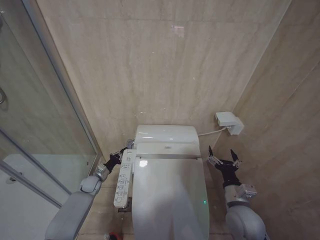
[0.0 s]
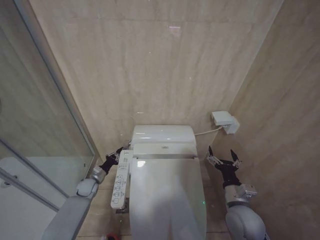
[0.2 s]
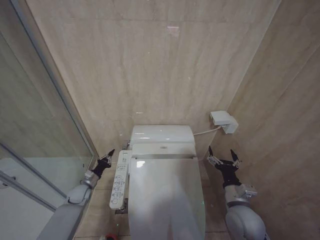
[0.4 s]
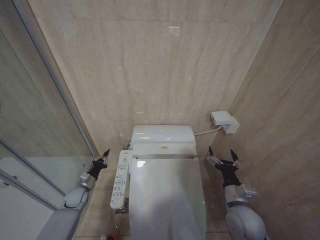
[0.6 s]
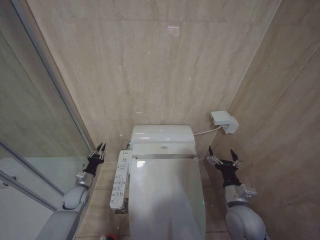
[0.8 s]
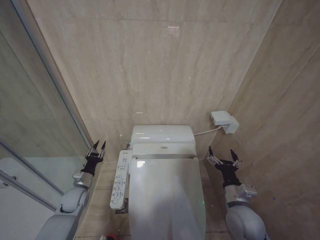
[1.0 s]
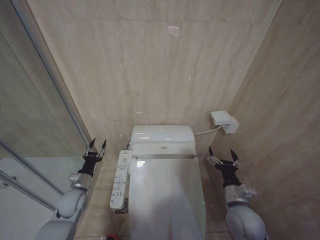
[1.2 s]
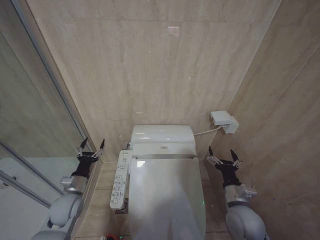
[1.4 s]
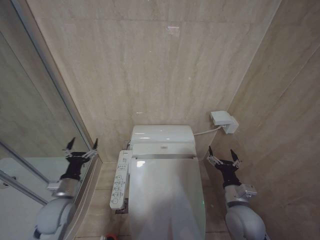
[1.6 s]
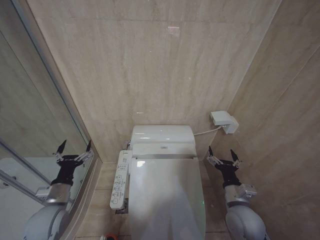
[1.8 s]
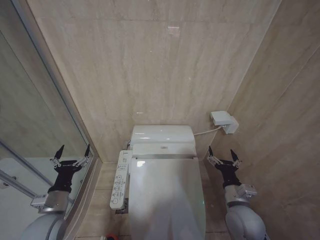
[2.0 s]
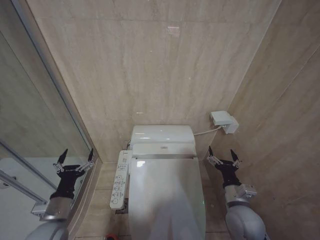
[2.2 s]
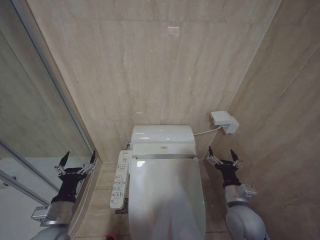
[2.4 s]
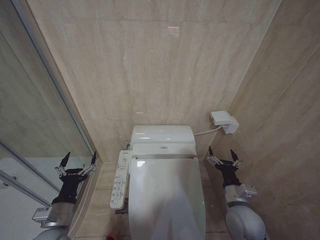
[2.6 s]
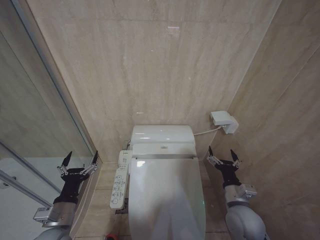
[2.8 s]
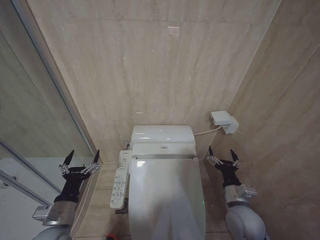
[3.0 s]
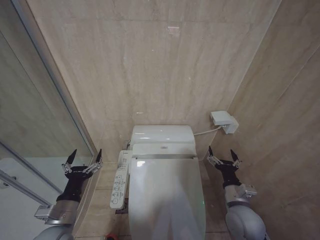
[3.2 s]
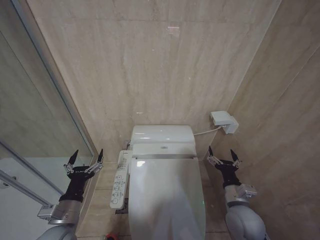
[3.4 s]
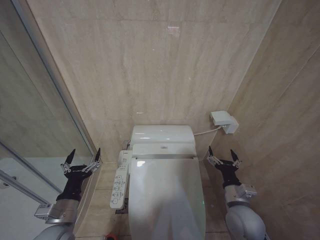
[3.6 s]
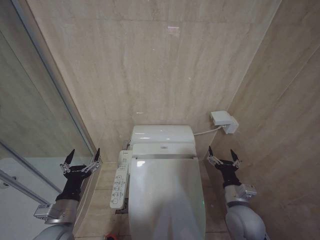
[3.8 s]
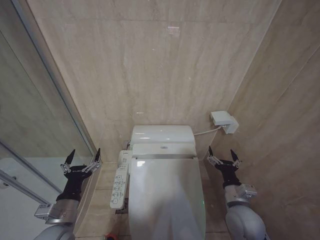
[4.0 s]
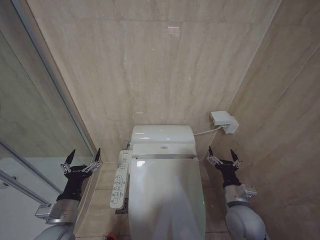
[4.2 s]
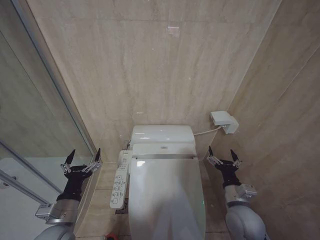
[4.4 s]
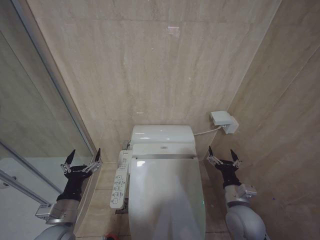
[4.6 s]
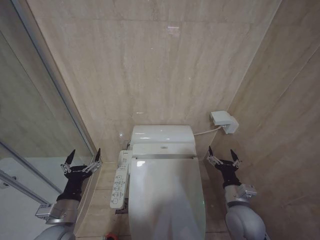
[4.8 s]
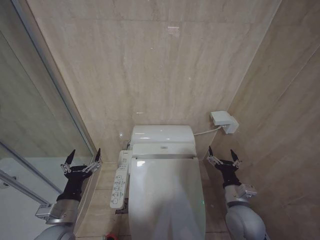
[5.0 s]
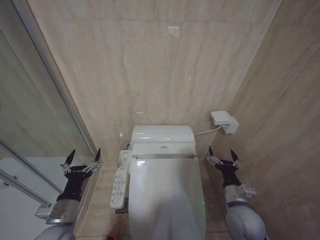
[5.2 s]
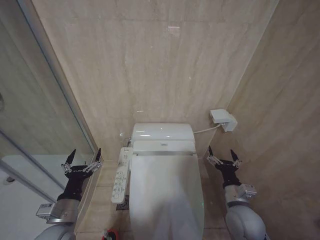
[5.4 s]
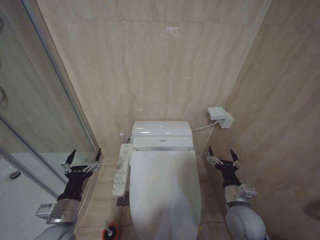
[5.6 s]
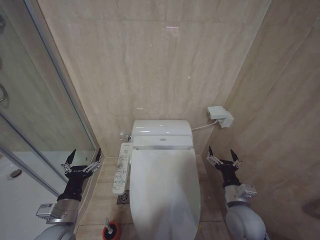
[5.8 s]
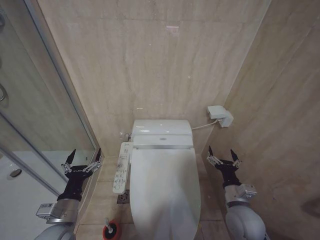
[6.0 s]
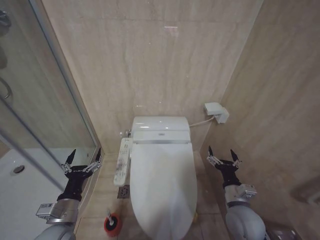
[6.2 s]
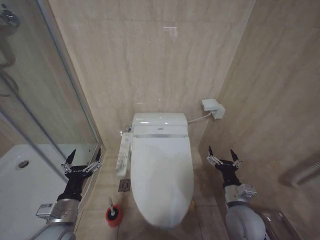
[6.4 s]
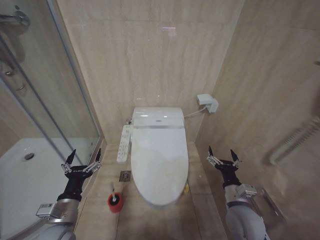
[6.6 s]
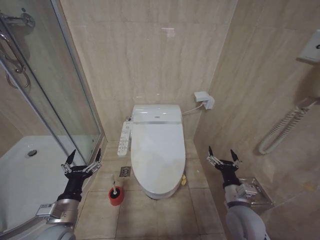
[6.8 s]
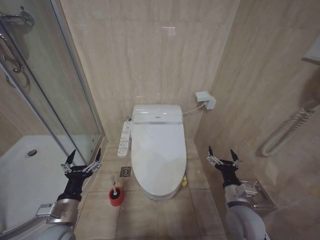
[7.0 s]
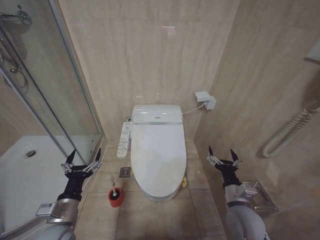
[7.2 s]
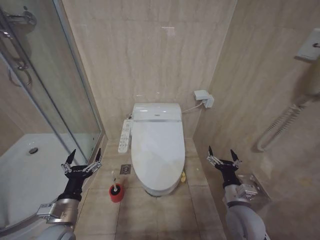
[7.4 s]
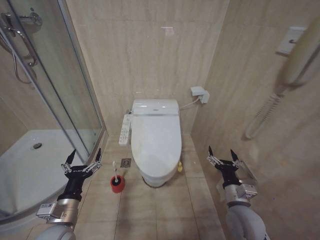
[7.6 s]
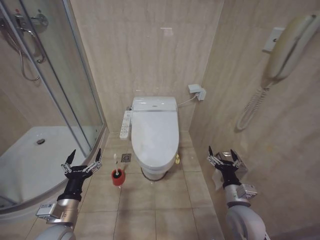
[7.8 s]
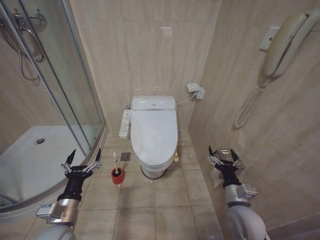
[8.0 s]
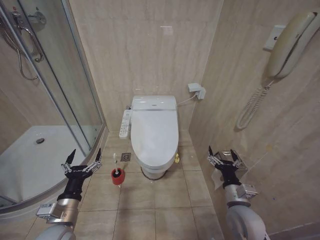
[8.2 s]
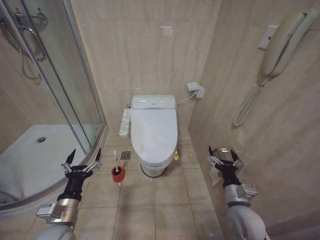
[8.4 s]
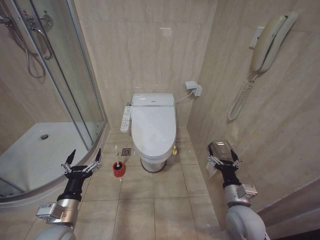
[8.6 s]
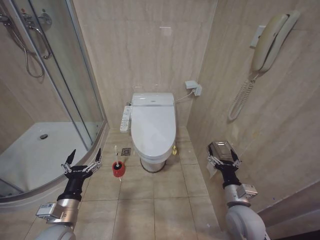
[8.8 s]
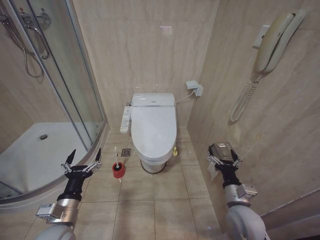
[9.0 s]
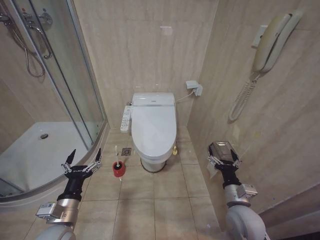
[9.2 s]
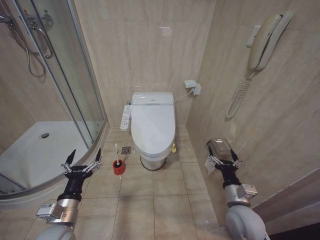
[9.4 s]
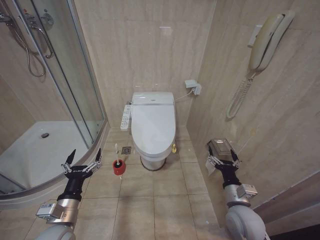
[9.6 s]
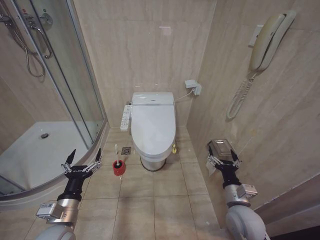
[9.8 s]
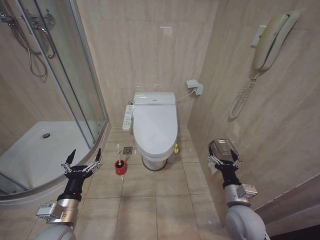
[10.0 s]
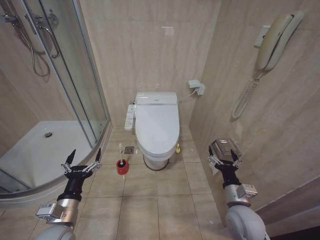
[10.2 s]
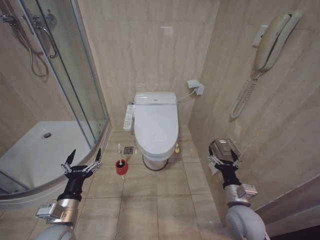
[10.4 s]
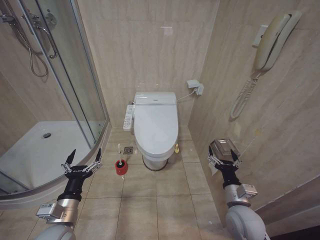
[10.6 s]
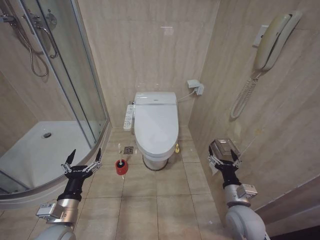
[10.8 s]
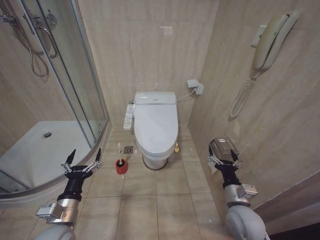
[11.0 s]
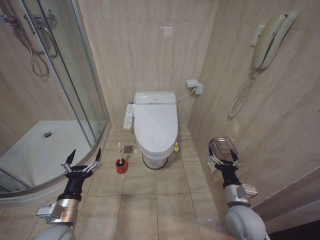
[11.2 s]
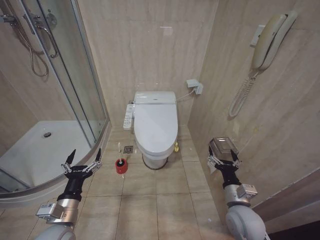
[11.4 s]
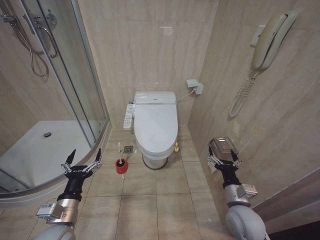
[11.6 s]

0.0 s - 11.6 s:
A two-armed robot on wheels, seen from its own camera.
Task of the whole recording: Open the toilet lid, clean the toilet bowl with a toilet brush, close the toilet lid, and flush.
0.0 s - 1.4 s: The left gripper travels backward and upward by some 15 cm, and opens up.
1.4 s - 2.8 s: The left gripper travels backward and upward by about 15 cm.
2.8 s - 4.4 s: The grippers make only small movements.
4.4 s - 7.2 s: Both grippers stay about where they are.
8.8 s - 11.6 s: Both grippers stay put.

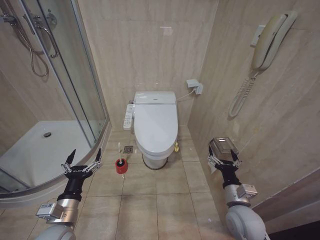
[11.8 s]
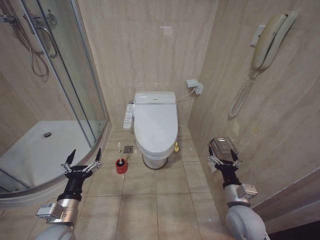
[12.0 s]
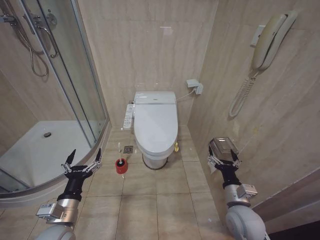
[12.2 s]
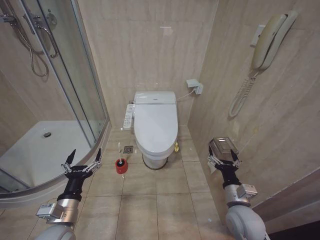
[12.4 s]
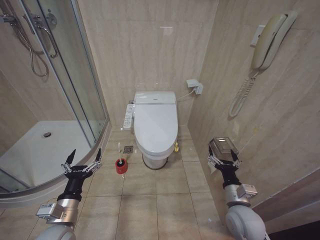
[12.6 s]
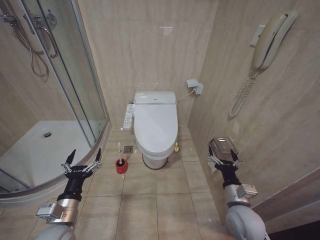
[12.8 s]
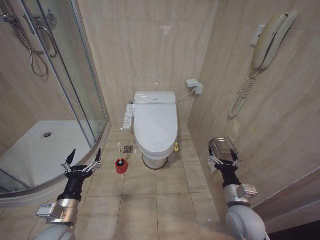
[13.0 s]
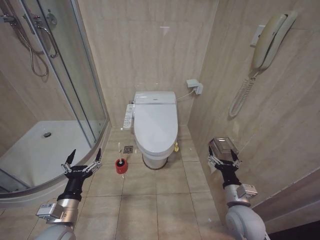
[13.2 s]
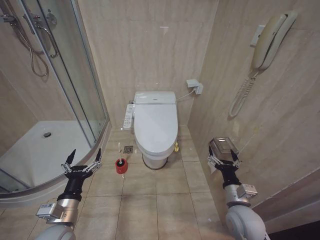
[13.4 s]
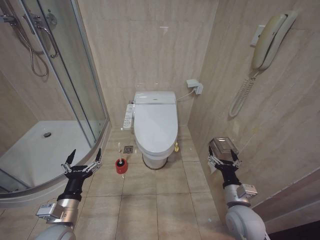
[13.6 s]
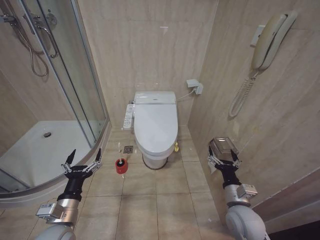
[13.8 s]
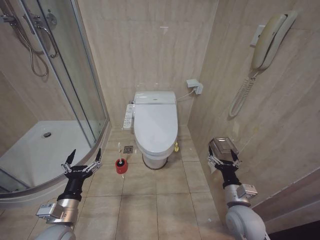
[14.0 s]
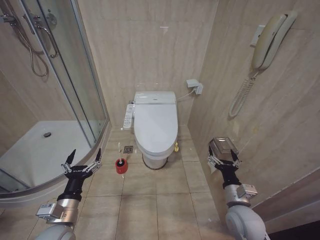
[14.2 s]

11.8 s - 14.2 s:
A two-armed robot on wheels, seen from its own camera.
Task of the whole recording: Open the toilet lid, clean the toilet bowl with a toilet brush, close the toilet lid, and flush.
11.8 s - 14.2 s: The two grippers keep their place.

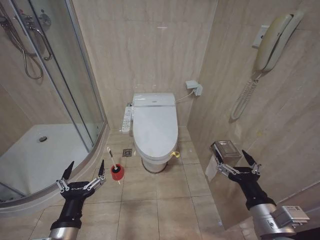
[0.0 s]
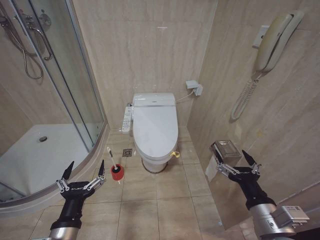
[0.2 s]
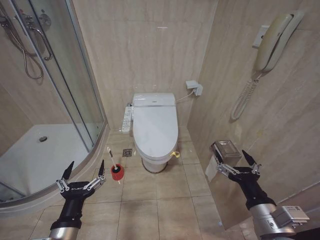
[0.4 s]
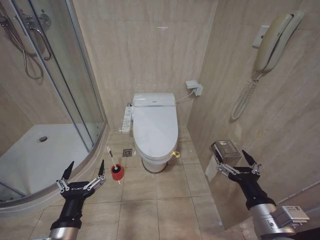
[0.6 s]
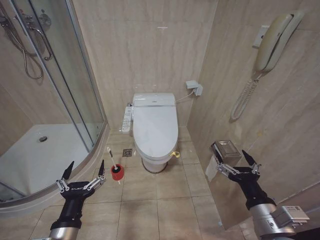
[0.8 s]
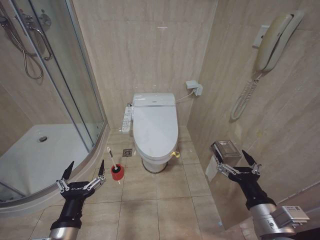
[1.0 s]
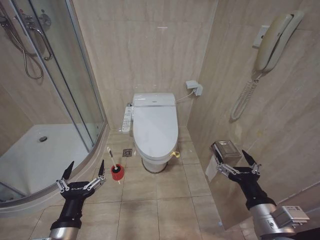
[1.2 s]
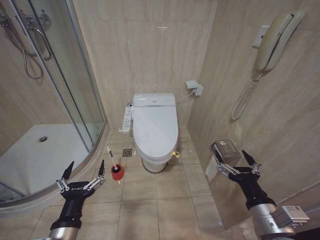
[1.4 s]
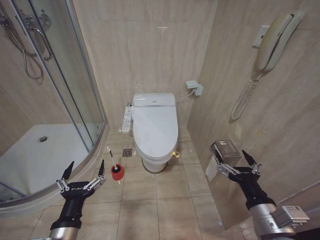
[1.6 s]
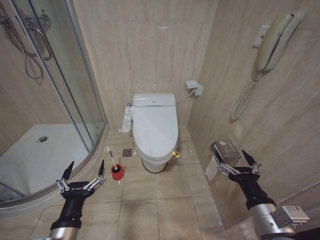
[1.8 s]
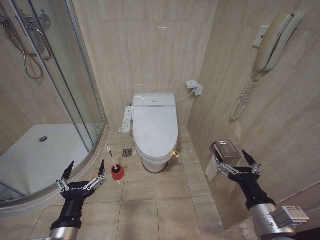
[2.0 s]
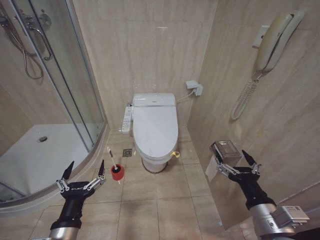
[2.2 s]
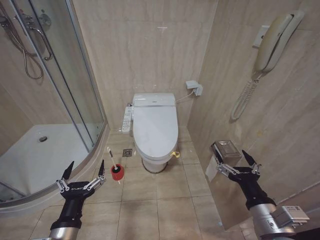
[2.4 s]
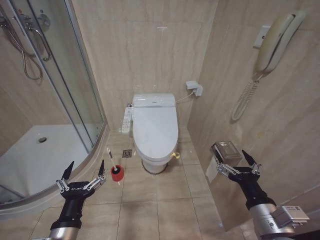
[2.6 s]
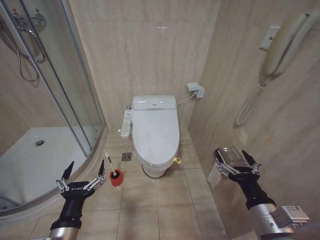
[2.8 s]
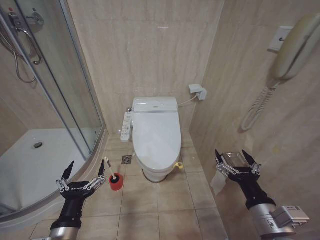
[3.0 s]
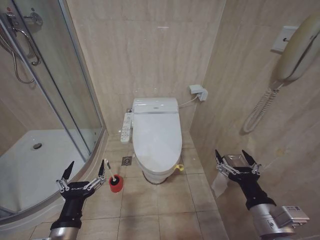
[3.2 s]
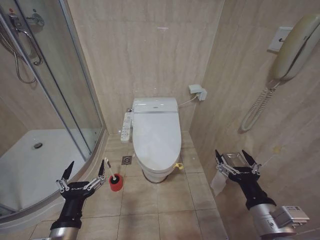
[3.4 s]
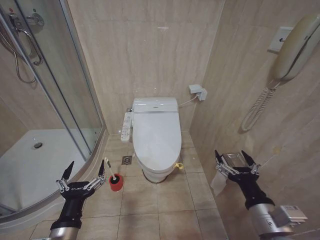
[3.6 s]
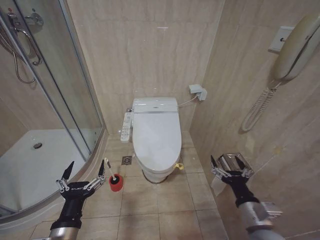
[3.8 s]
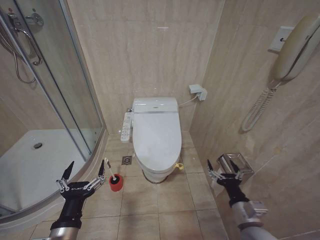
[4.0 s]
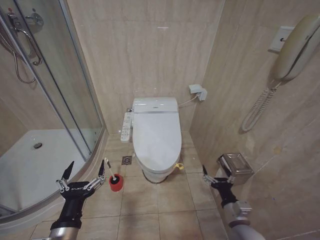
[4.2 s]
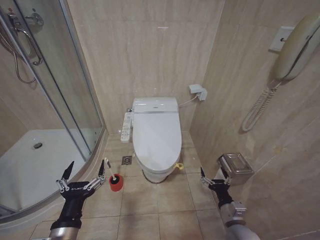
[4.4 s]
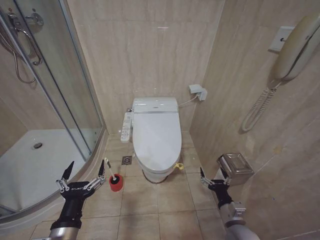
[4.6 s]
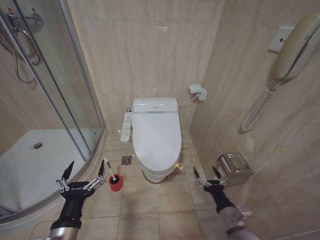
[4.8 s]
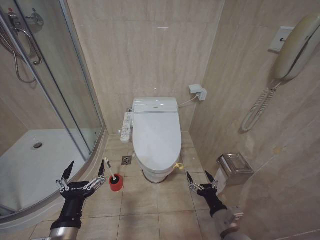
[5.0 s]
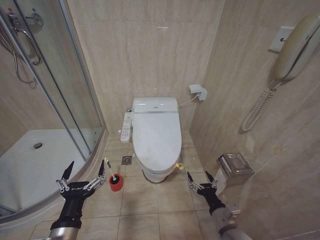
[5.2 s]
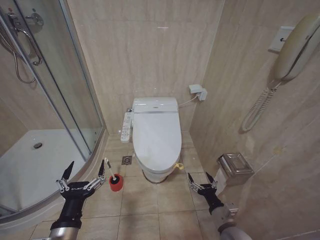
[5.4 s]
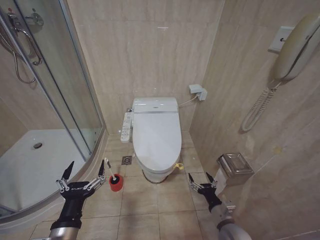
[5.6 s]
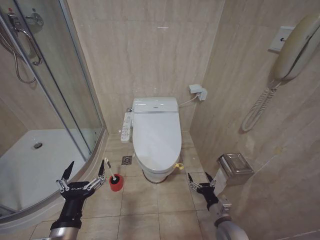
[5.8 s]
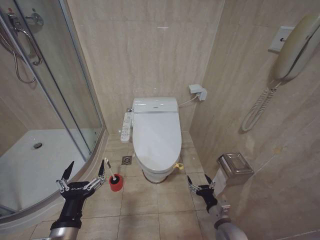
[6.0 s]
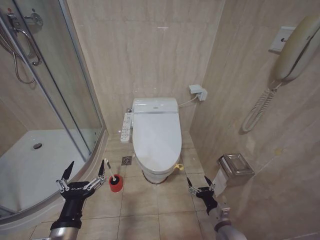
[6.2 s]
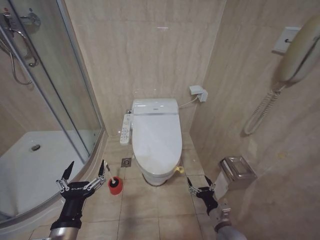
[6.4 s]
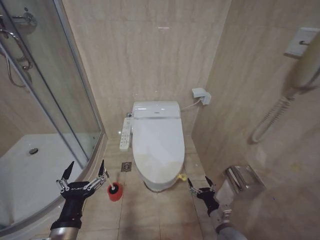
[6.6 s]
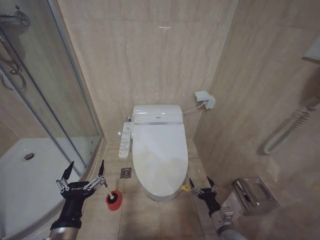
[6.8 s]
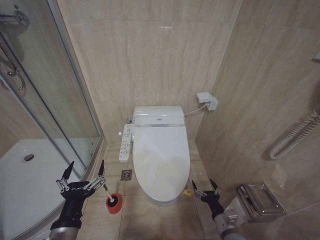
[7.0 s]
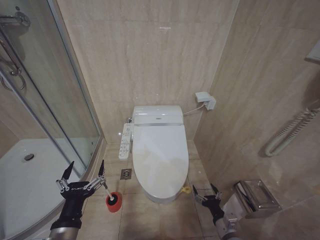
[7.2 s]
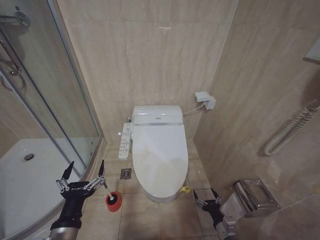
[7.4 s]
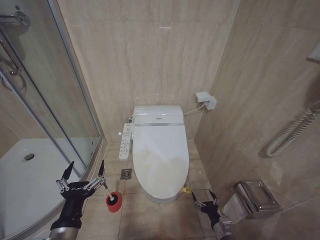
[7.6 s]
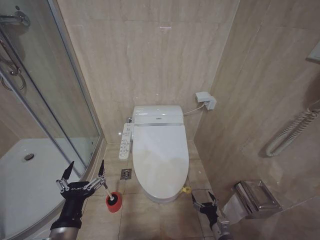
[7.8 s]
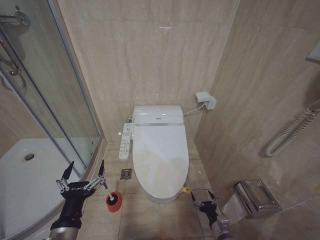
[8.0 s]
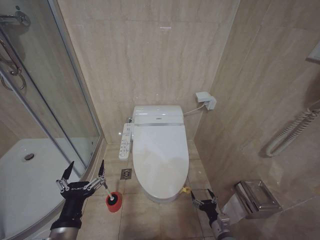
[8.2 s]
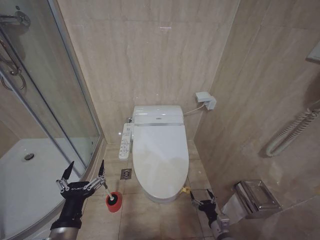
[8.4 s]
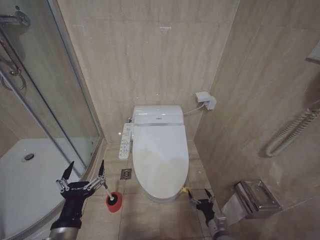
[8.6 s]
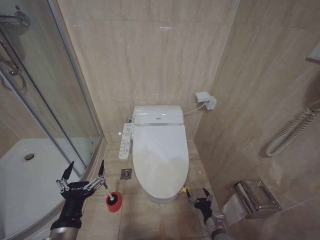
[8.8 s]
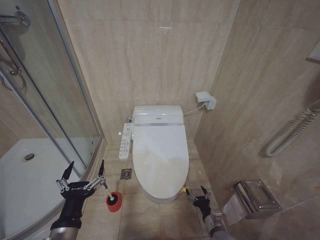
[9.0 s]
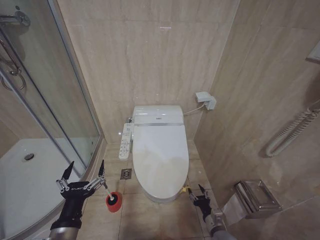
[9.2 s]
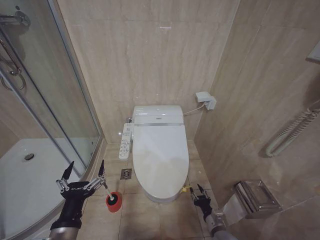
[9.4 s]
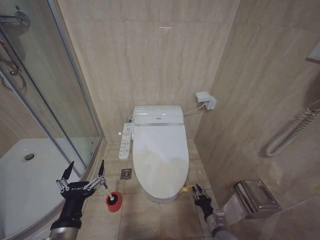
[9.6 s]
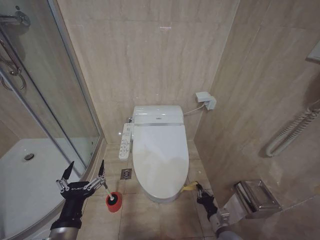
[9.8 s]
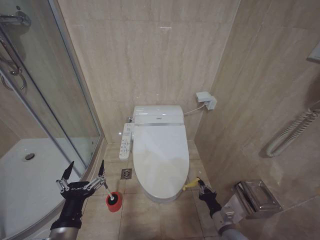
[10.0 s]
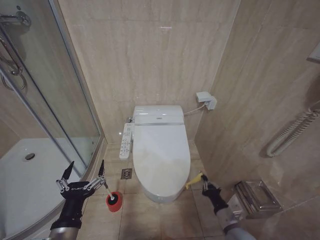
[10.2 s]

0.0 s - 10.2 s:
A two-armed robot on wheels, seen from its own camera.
Task of the whole recording: Open the toilet lid, clean the toilet bowl with a toilet brush, close the toilet lid, and flush.
1.4 s - 3.0 s: Both grippers stay about where they are.
3.0 s - 4.4 s: The right gripper is displaced downward and forward by roughly 20 cm.
4.4 s - 5.8 s: There are only small adjustments of the grippers.
5.8 s - 7.2 s: The grippers make only small movements.
7.2 s - 8.8 s: The right gripper travels downward by about 5 cm.
8.8 s - 10.2 s: The right gripper shifts some 10 cm upward, and closes.
